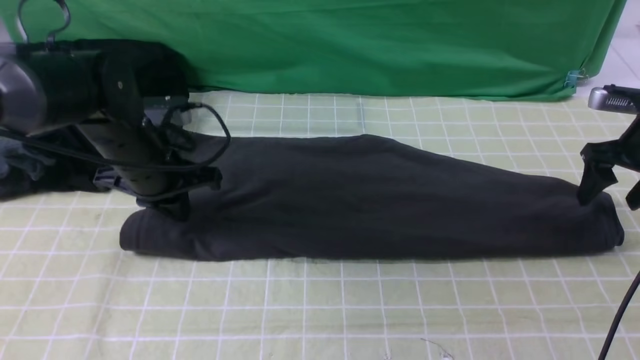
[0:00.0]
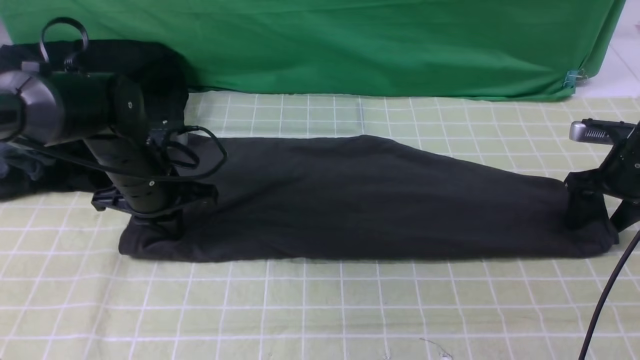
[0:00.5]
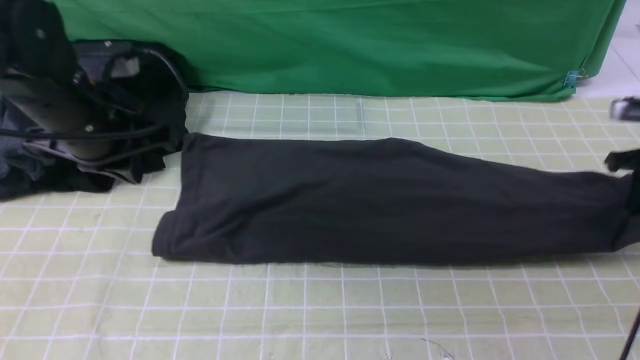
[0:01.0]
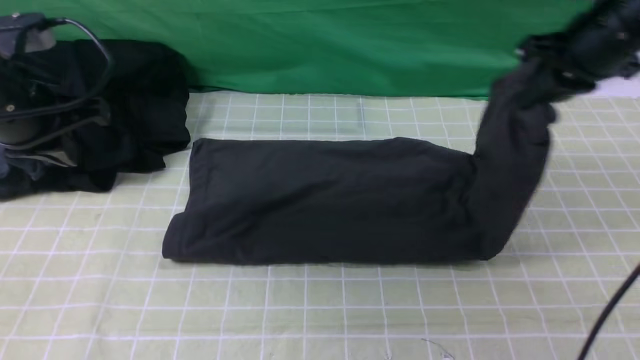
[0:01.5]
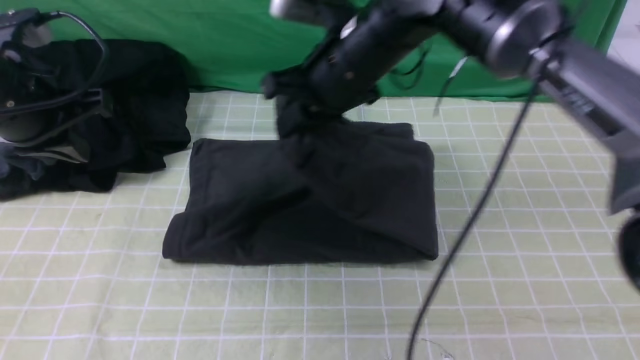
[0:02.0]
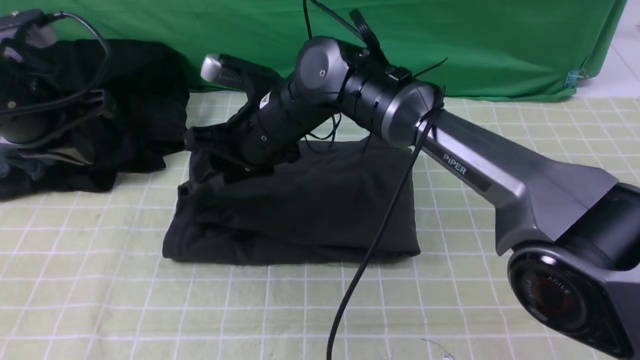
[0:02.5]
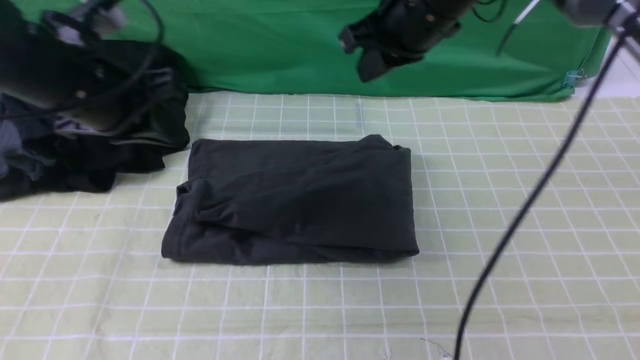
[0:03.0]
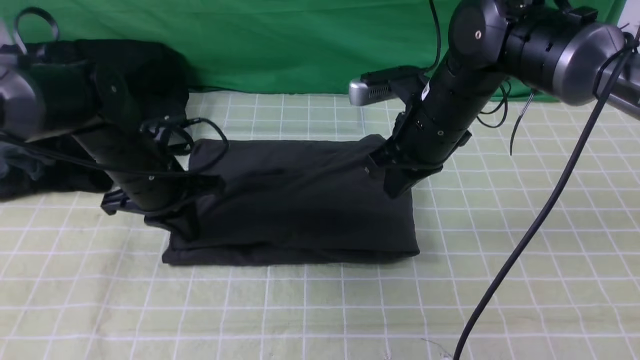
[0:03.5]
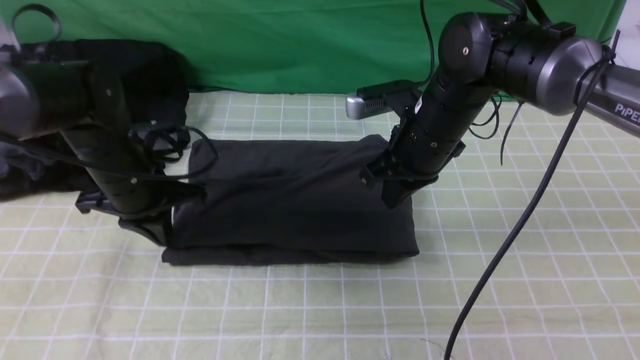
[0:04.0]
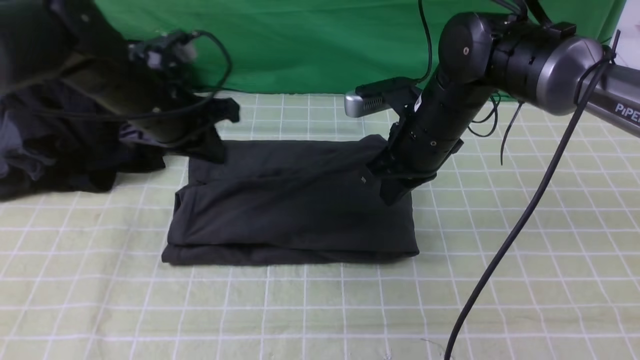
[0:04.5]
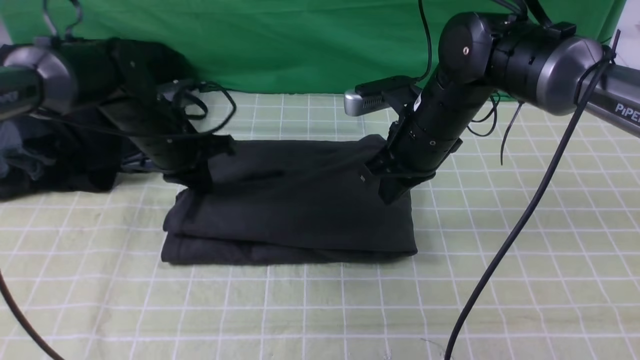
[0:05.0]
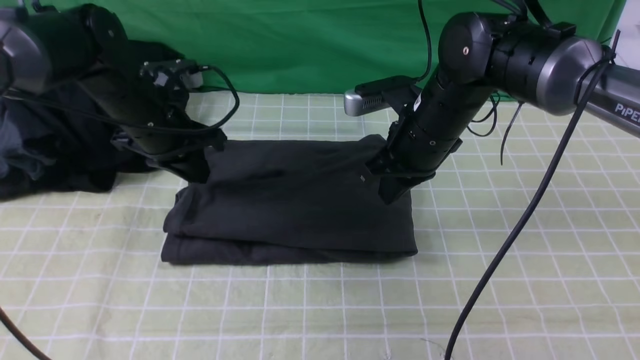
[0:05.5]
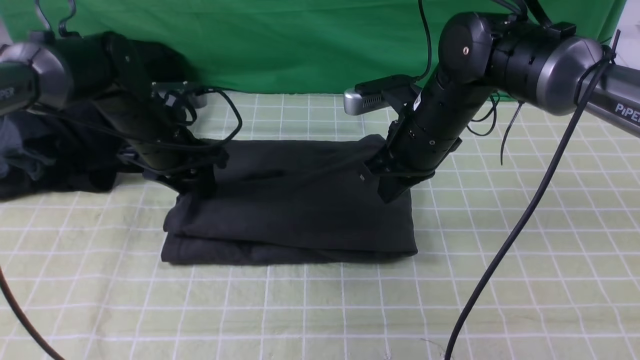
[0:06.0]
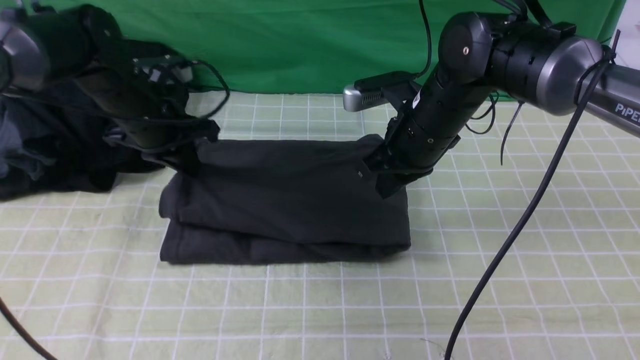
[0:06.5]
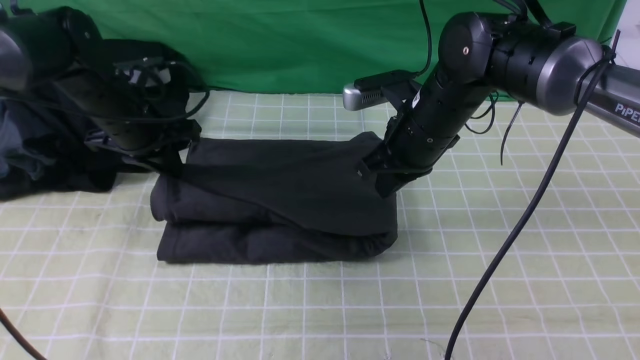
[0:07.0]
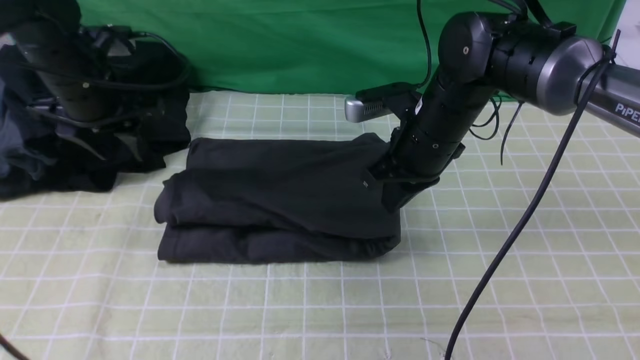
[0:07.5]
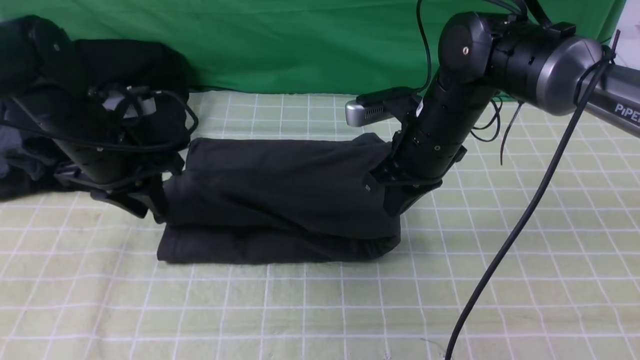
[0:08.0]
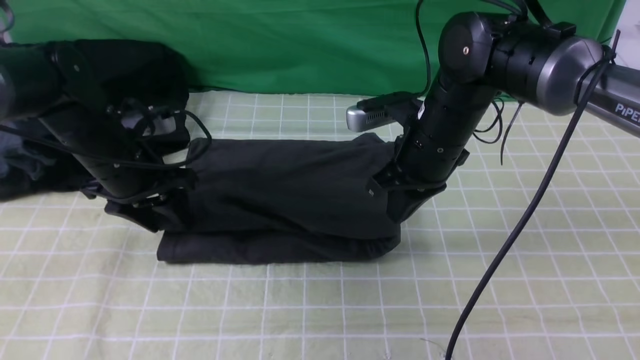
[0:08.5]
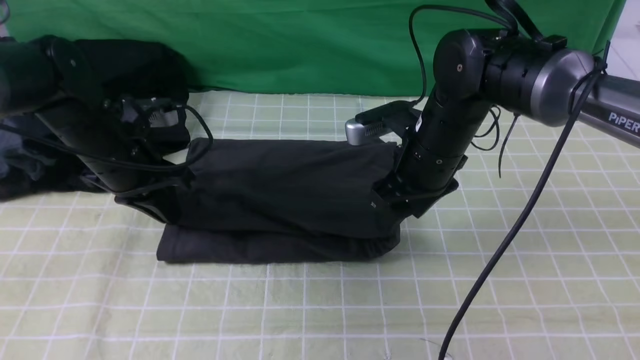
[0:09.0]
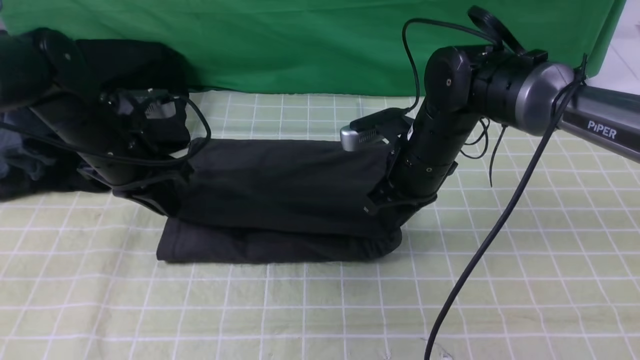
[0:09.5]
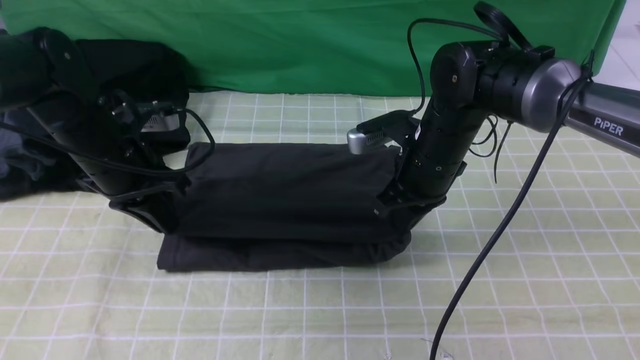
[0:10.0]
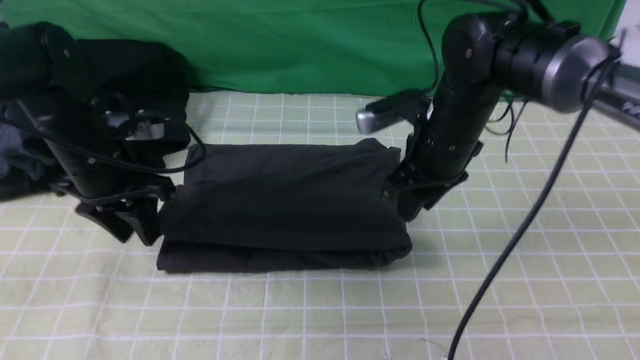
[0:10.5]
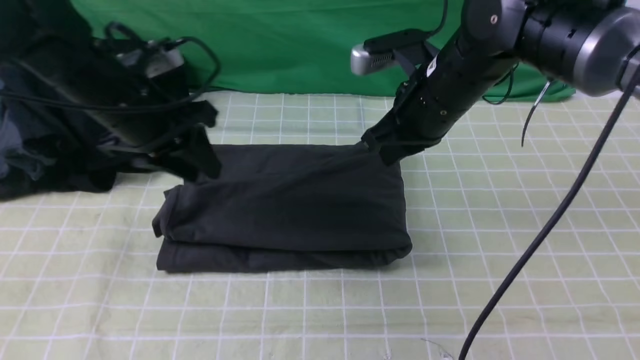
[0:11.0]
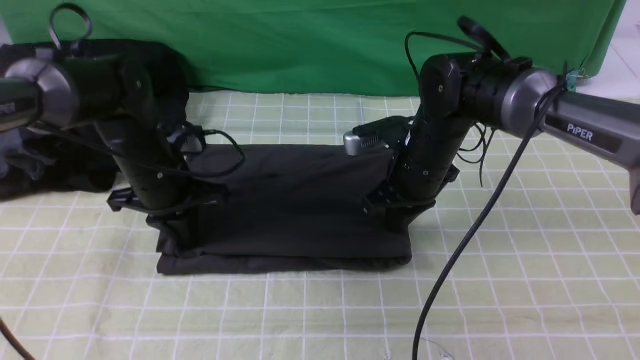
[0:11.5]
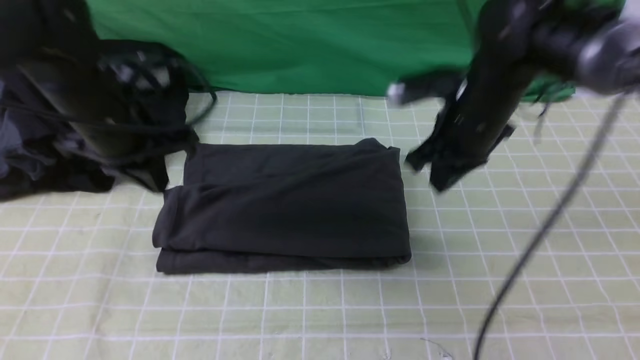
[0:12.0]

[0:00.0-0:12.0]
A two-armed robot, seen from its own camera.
Step, 0:01.0 to 0:02.5: use the right arm to drag the right edge of the fabric to the left and folds it over the left edge.
0:00.0 to 0:02.0: The left gripper is displaced upward, to the left and backward by roughly 15 cm, while the right gripper goes about 35 cm to the left, and closes up.
0:02.0 to 0:04.0: The right gripper is displaced to the right and downward by some 10 cm, and opens and closes again. Meanwhile the left gripper moves downward and to the right, some 10 cm.
0:04.0 to 0:06.0: The left gripper heads forward, covering roughly 5 cm, and opens up.
0:06.0 to 0:08.0: The left gripper shifts some 5 cm backward, and closes and opens again.
0:08.0 to 0:10.0: The right gripper opens, then closes again; the left gripper closes.
0:10.0 to 0:12.0: The right gripper swings up and down, some 10 cm each way, with 2 reversals. The left gripper goes up and down, some 15 cm each way, reversing 2 times, and opens, then closes once more.

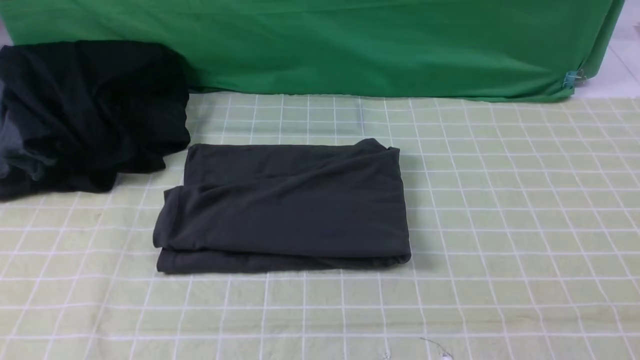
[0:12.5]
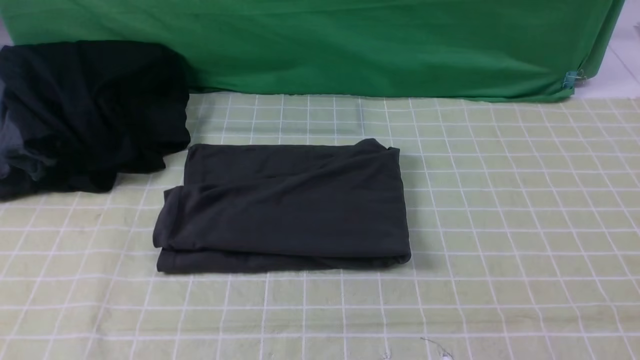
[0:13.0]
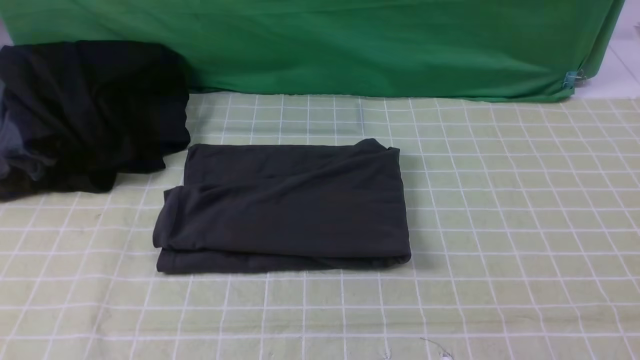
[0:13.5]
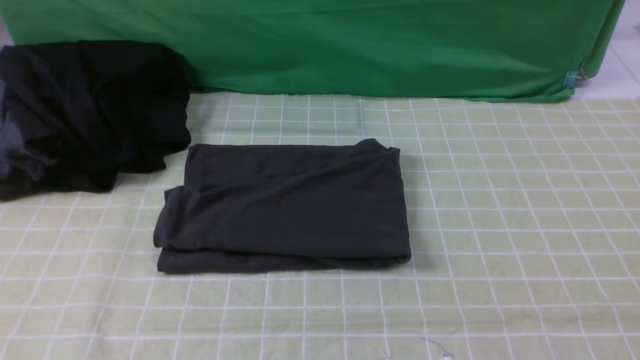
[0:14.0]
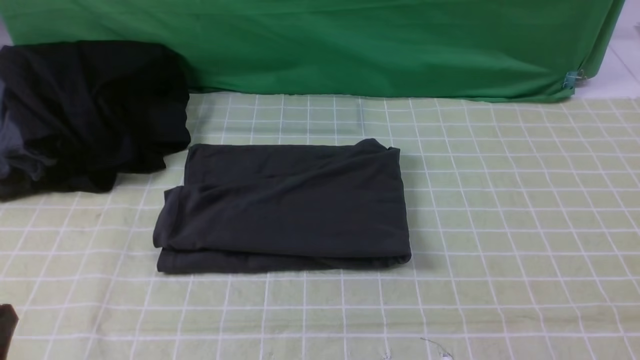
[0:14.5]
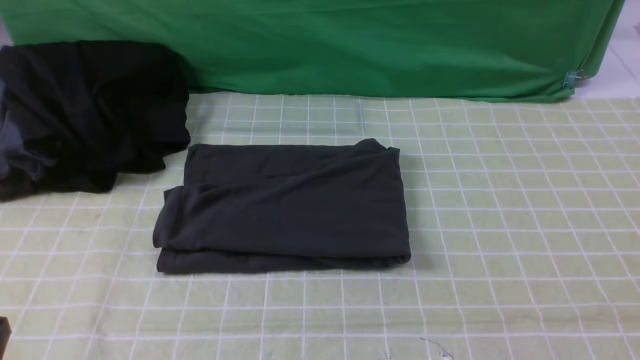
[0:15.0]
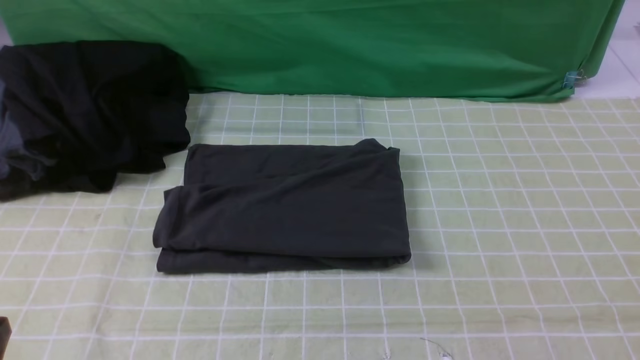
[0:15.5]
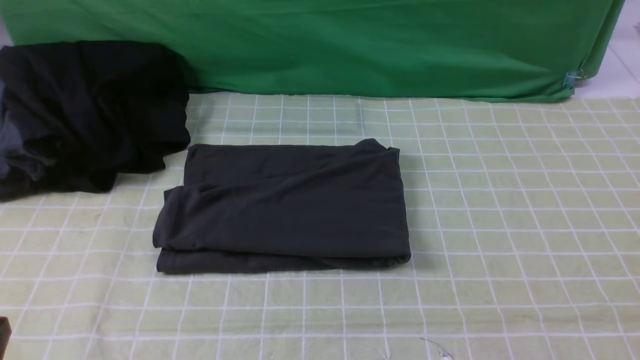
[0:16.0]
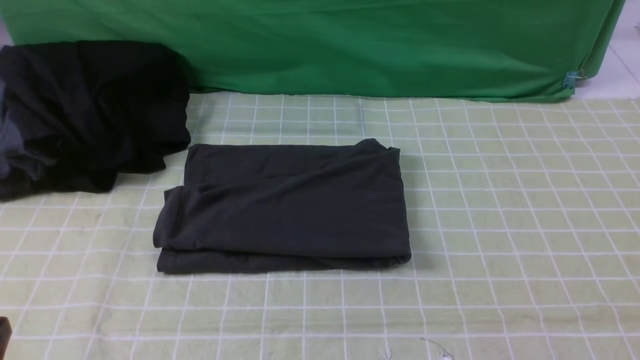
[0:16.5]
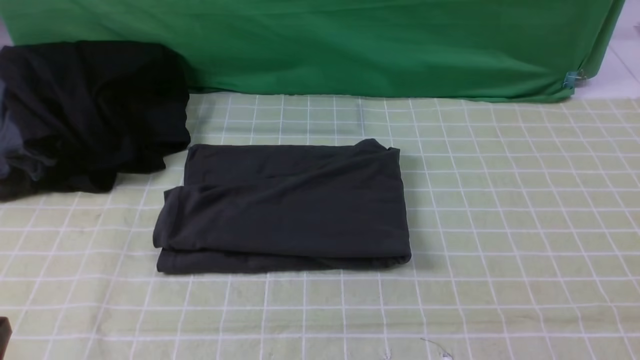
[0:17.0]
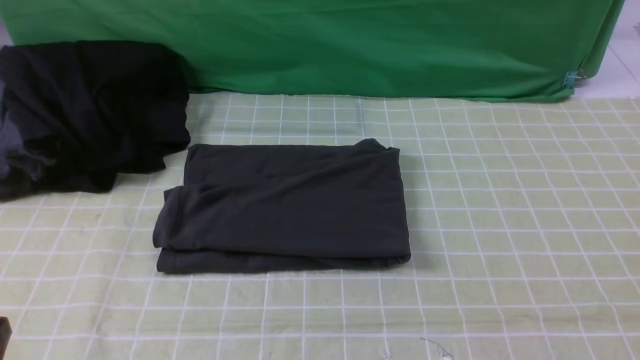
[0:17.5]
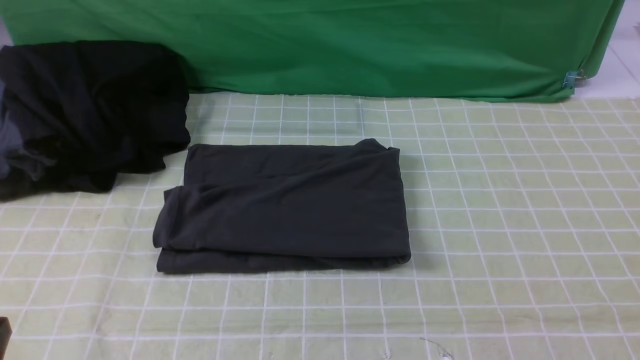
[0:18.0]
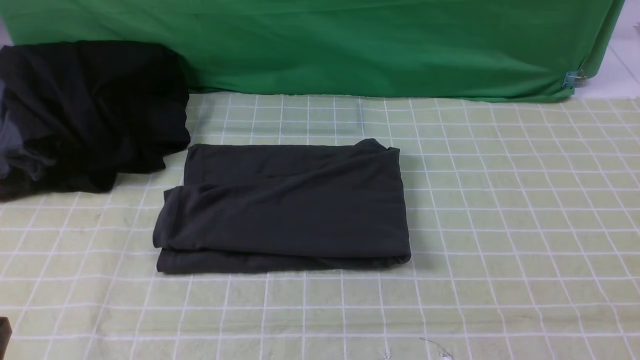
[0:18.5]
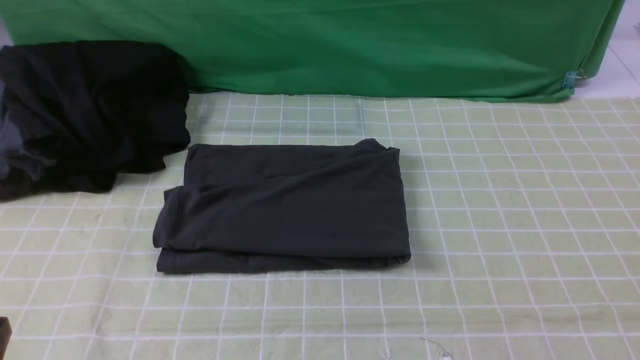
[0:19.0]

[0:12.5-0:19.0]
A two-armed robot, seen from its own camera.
0:17.0 to 0:19.0: Both grippers stay put.
